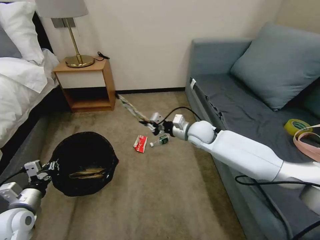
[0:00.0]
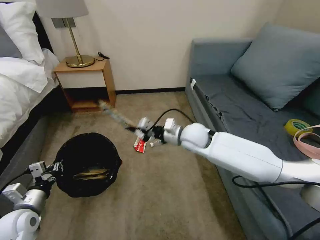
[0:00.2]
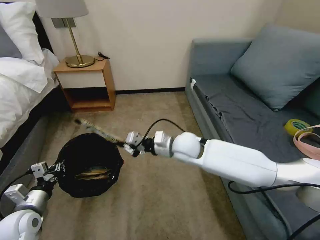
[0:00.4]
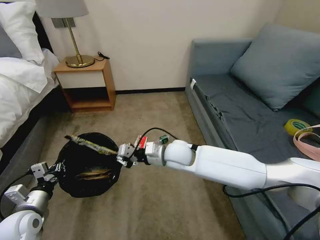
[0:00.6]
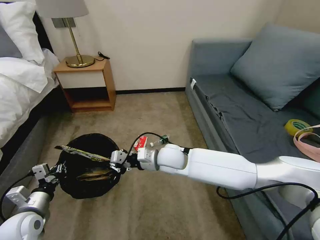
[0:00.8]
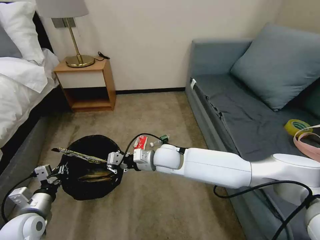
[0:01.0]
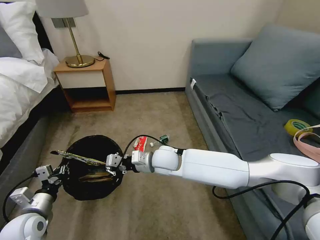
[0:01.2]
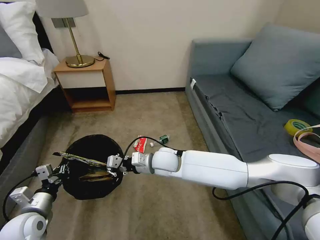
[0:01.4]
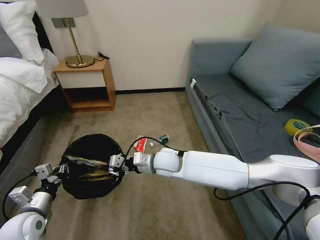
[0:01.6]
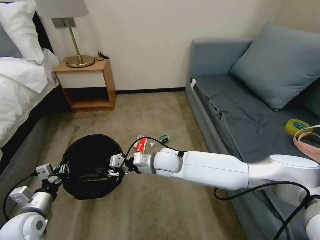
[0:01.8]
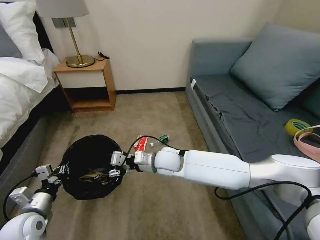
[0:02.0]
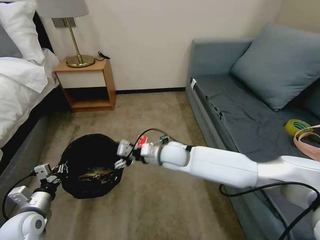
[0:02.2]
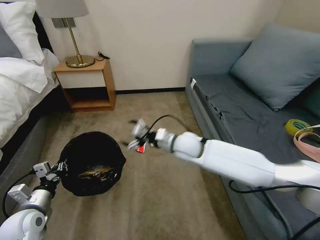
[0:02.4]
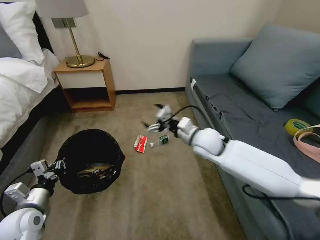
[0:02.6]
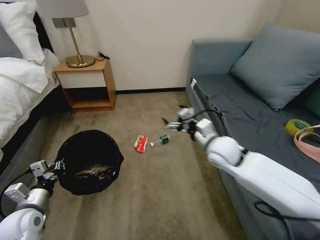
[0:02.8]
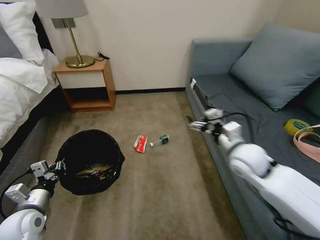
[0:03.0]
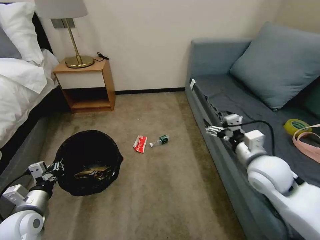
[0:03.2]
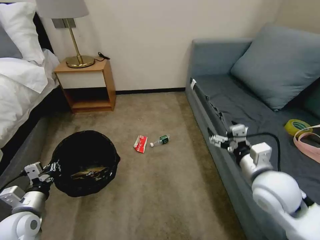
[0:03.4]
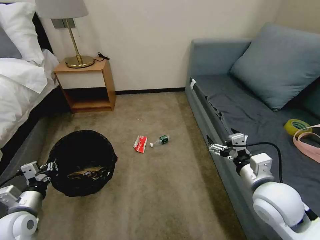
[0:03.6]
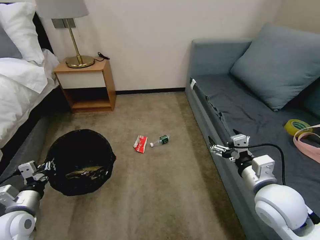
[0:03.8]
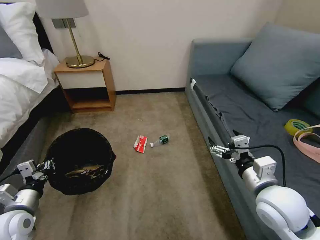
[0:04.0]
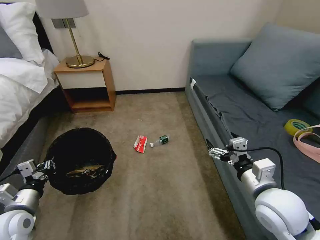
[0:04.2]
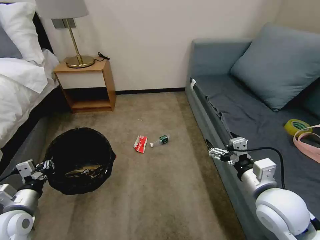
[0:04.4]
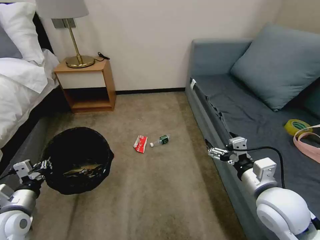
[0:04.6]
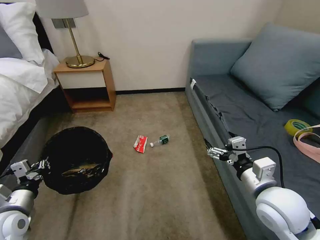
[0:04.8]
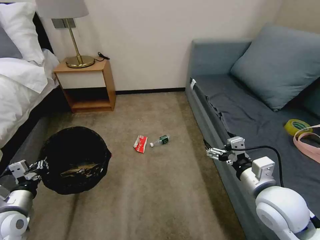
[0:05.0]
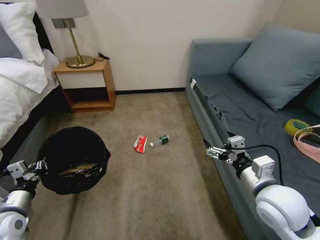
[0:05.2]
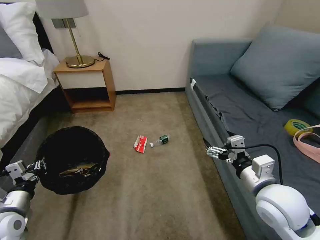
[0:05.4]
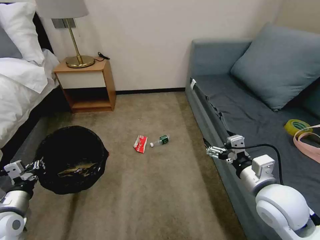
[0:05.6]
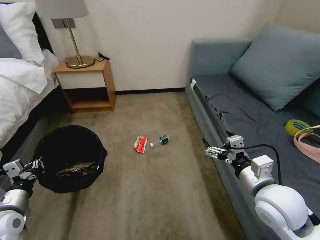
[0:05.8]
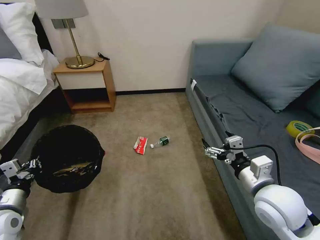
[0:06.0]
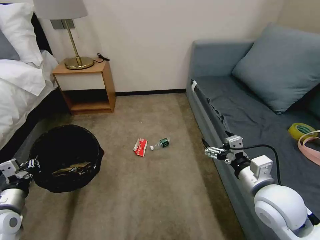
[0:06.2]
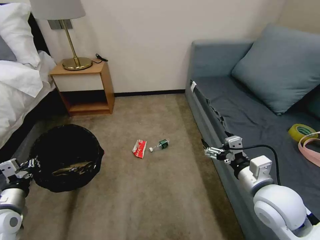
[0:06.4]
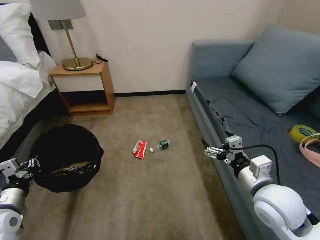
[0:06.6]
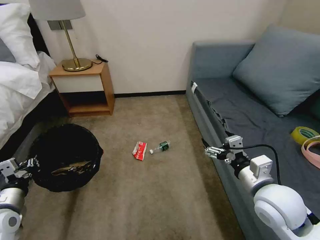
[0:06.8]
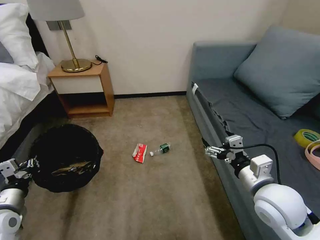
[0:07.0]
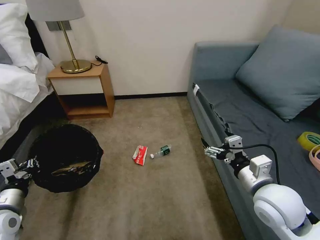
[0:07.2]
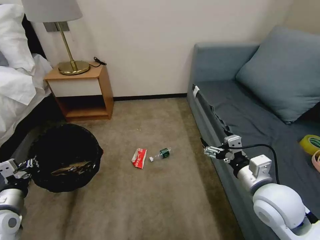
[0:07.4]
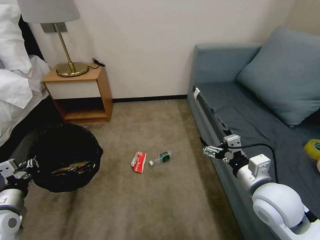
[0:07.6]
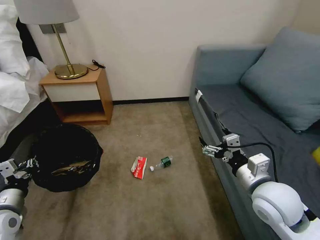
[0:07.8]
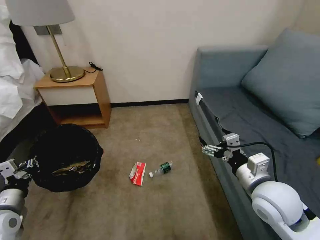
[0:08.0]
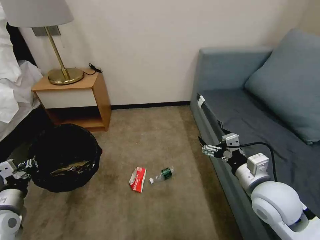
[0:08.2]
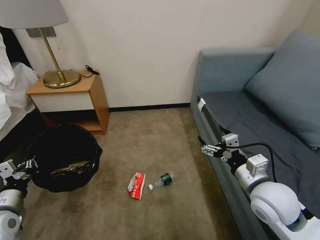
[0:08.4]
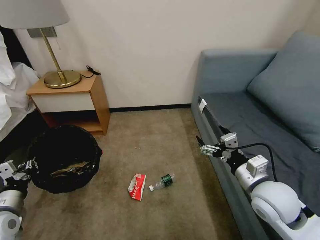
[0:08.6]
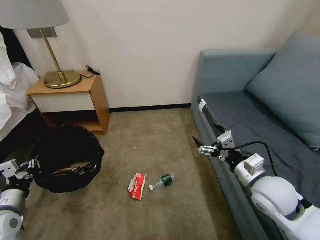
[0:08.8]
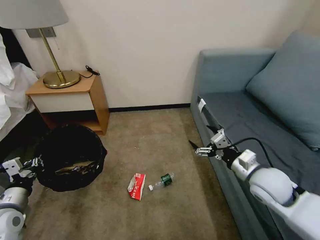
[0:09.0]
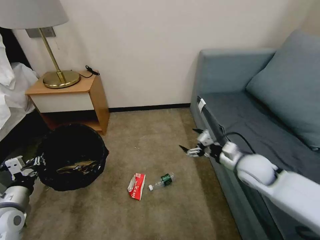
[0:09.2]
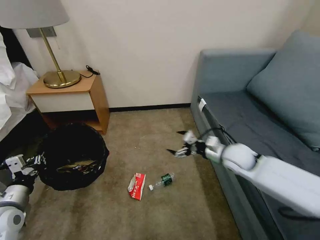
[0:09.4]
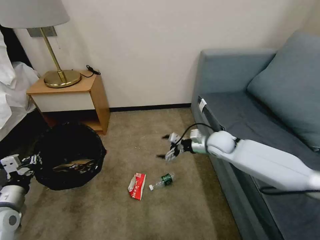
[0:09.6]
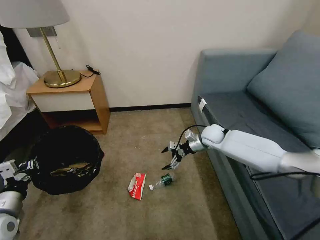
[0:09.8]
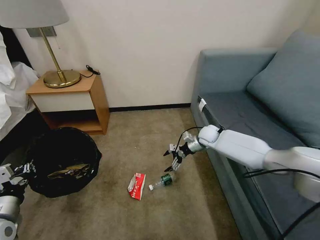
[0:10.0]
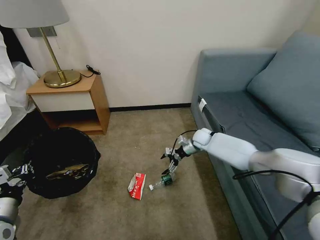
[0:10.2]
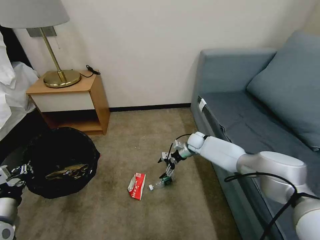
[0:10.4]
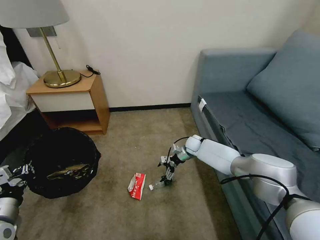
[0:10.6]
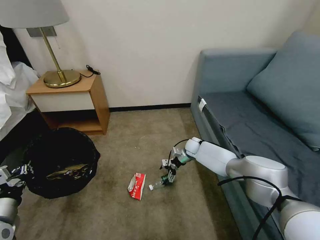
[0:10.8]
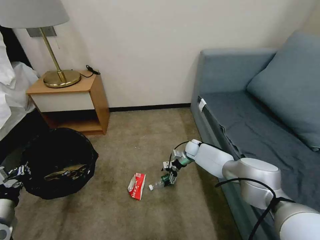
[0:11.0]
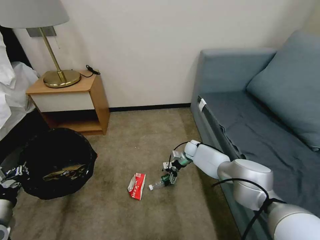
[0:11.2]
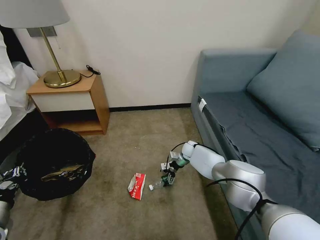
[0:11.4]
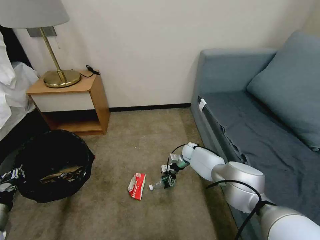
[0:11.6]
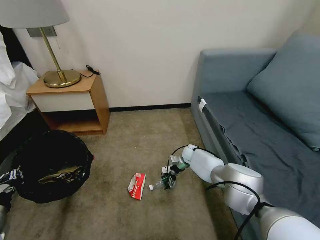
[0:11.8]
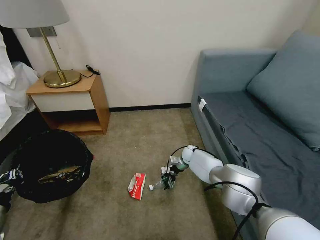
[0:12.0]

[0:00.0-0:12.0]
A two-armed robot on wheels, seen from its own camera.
Task of the whole recording: Pick up the trash bin, then pick up the garbage on the floor and place it into the trash bin.
0:00.0 to 0:01.6: The right gripper shifts roughly 20 cm to the left and backward.
0:01.6 to 0:03.0: The right gripper travels to the right by approximately 25 cm, and opens.
0:03.0 to 0:04.4: The right gripper goes roughly 15 cm backward.
0:04.4 to 0:06.0: There are only small adjustments of the grippers.
0:07.6 to 0:09.0: The right gripper is displaced forward by roughly 5 cm.
0:09.0 to 0:10.4: The right gripper heads forward and downward, covering roughly 30 cm.
0:10.4 to 0:12.0: The right gripper moves downward, roughly 10 cm.

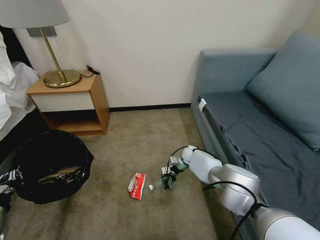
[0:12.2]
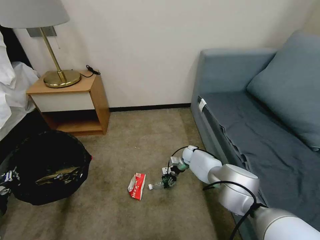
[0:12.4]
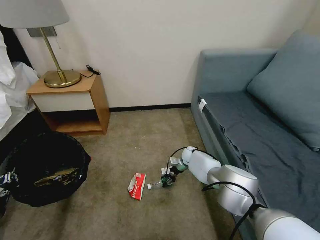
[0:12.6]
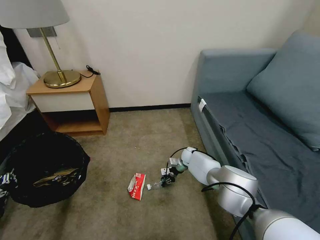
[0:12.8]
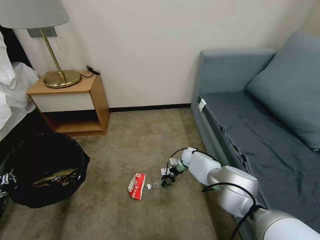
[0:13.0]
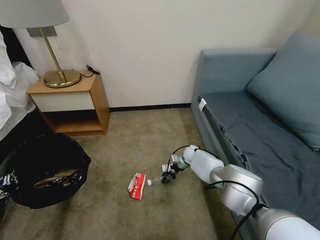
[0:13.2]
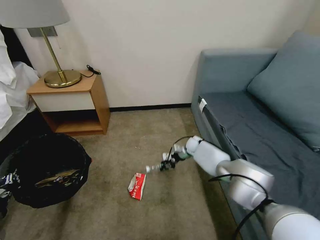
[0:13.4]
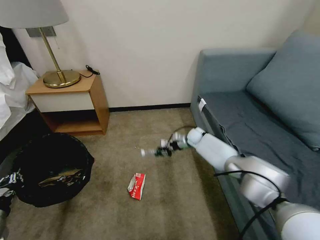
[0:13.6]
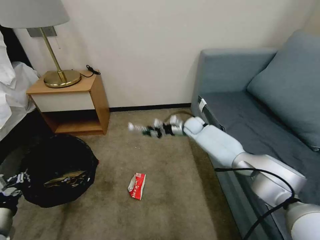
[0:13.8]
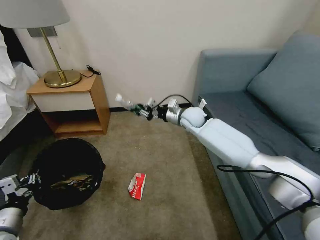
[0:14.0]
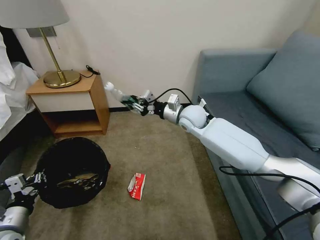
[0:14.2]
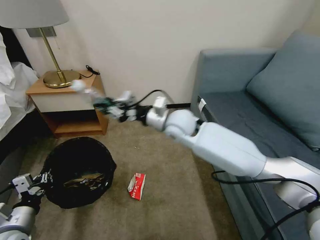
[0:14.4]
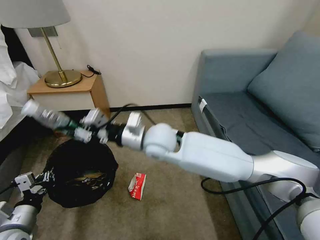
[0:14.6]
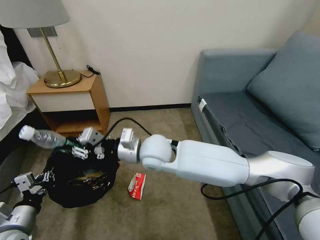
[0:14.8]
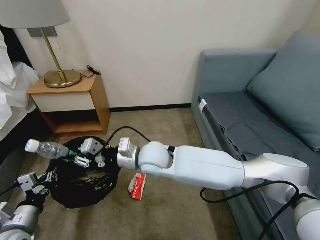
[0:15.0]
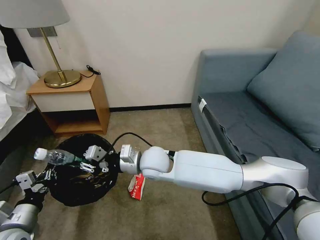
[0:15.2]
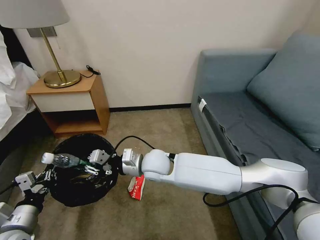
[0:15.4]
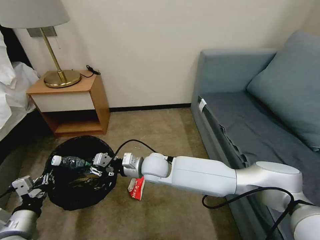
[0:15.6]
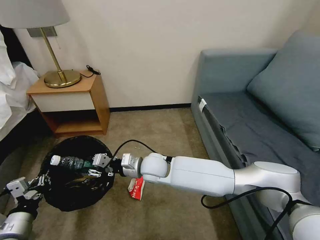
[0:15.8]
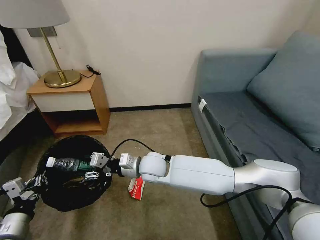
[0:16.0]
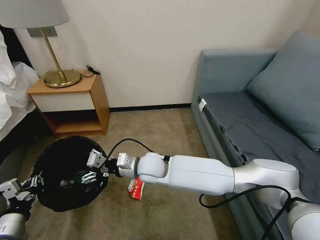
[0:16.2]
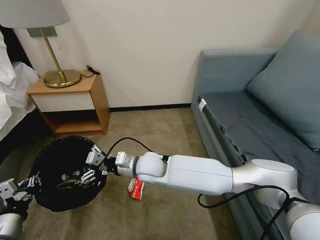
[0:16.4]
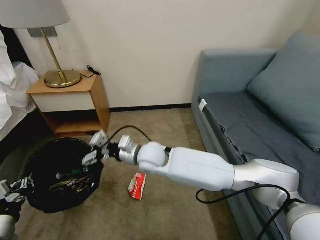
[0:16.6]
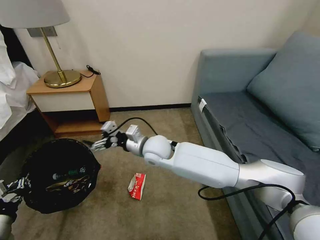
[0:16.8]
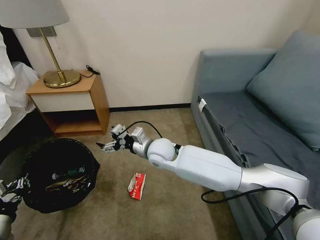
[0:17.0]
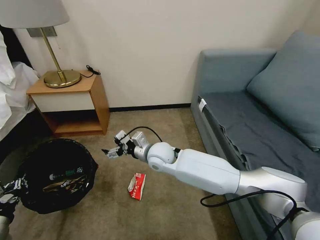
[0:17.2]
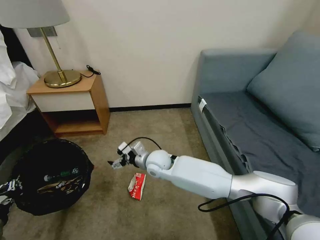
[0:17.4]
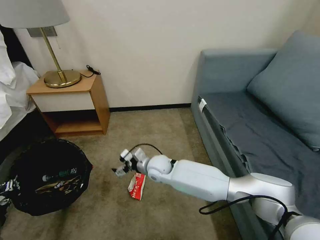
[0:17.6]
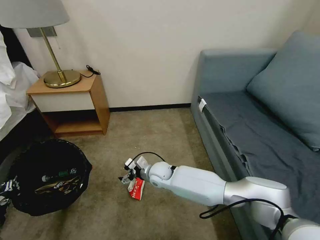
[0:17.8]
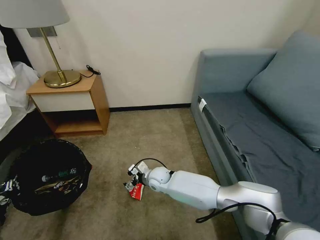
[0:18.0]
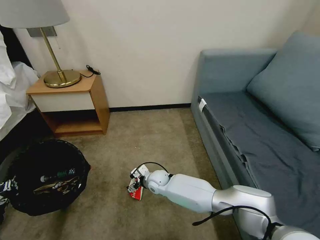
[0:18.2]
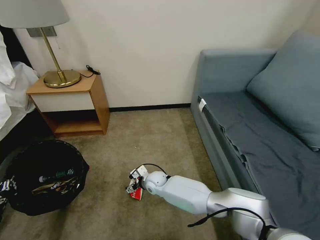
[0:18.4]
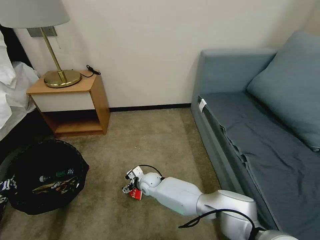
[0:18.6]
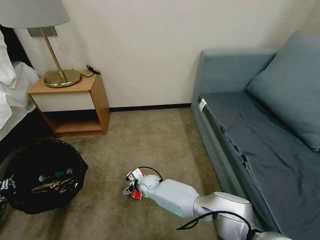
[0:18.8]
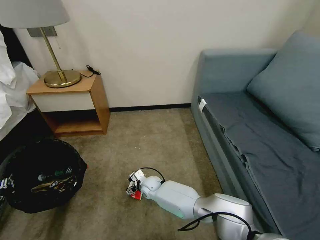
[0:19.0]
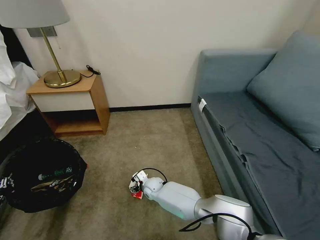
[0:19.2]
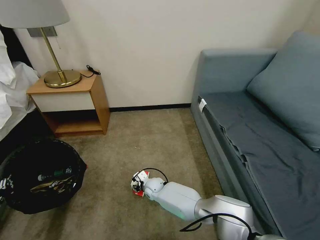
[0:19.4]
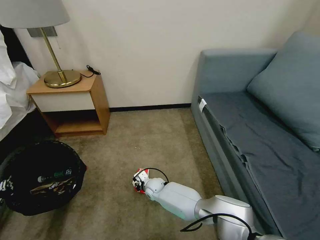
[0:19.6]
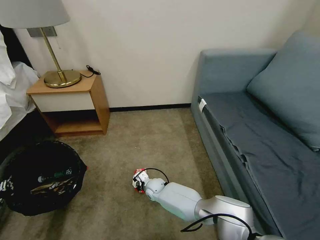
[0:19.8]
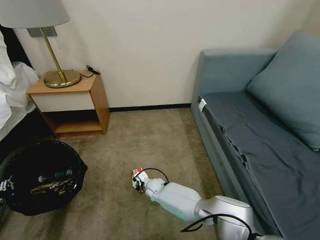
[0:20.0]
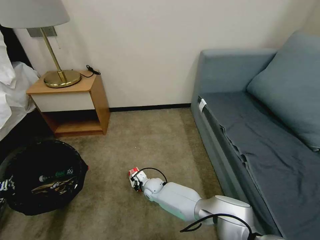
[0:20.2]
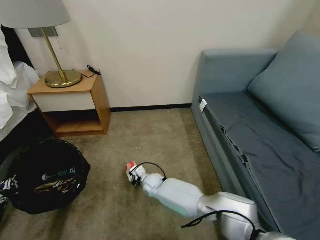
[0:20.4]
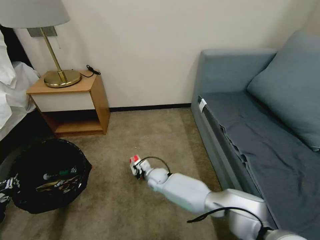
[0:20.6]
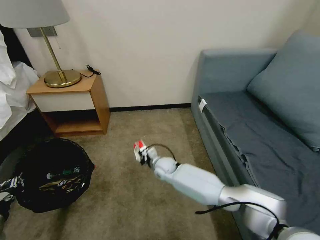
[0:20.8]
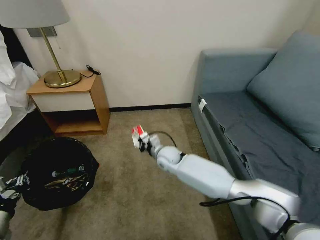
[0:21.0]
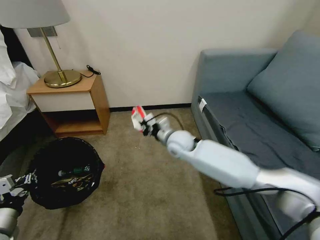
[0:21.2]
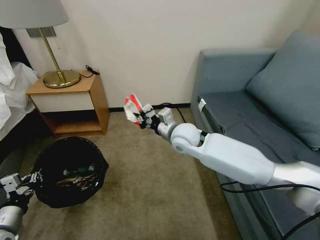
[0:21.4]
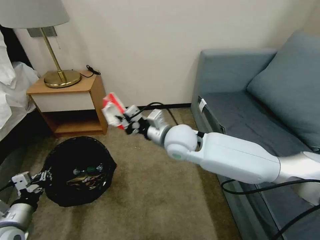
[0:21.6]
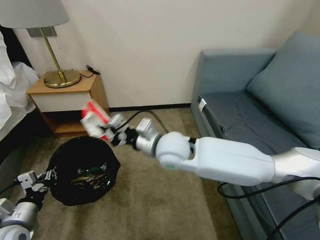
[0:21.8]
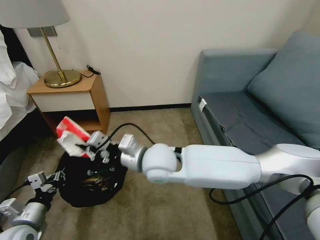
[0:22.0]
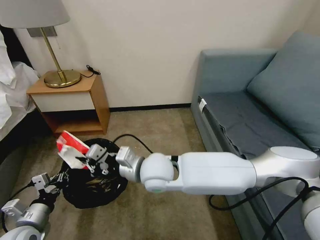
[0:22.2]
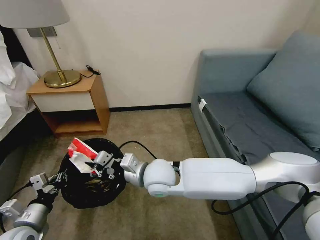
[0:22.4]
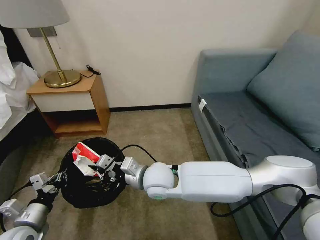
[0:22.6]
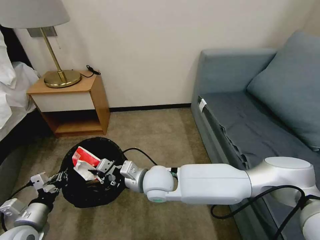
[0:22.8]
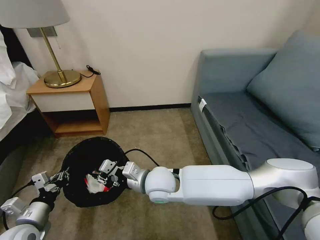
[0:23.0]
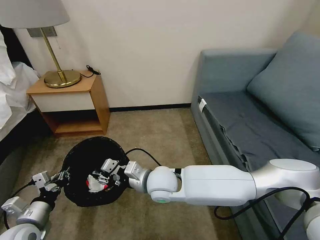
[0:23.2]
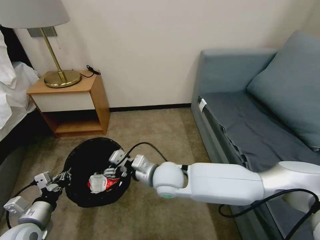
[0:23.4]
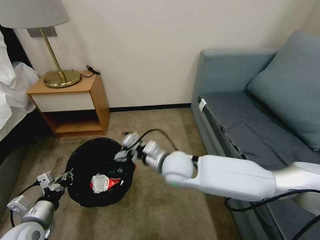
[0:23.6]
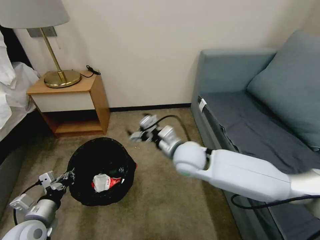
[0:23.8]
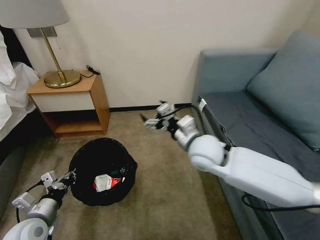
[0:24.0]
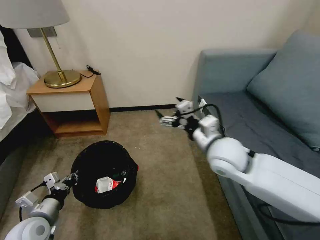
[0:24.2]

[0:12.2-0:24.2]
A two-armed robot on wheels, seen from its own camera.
Task of the whole recording: Pick up the trash bin, then pick up the garbage on the floor and place it into the trash bin.
0:12.2 to 0:13.8: The right gripper heads upward, covering about 15 cm, and closes up.
0:13.8 to 0:15.2: The right gripper is displaced backward and to the left by approximately 30 cm. Meanwhile the left gripper travels to the right by approximately 5 cm.
0:15.2 to 0:16.6: The right gripper opens.
0:16.6 to 0:18.2: The right gripper goes approximately 20 cm downward.
0:18.2 to 0:19.8: The right gripper heads downward, covering about 5 cm, and closes its fingers.
0:19.8 to 0:21.2: The right gripper moves upward, roughly 25 cm.
0:21.2 to 0:22.6: The right gripper moves backward and to the left, approximately 15 cm. The left gripper goes about 5 cm to the right.
0:22.6 to 0:24.2: The right gripper is displaced to the right and upward by roughly 20 cm, and opens up.
